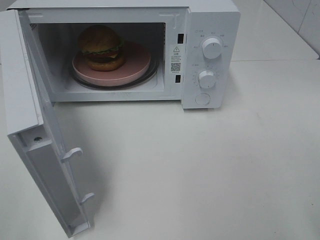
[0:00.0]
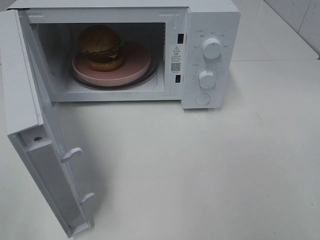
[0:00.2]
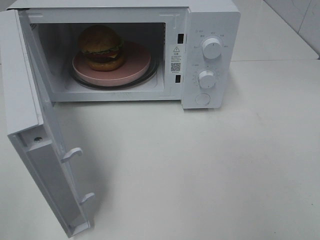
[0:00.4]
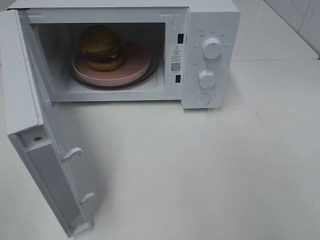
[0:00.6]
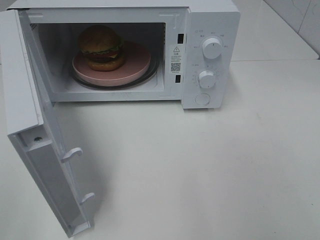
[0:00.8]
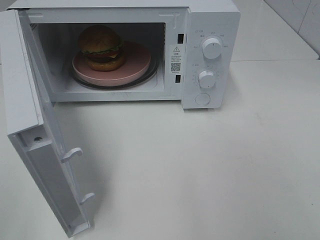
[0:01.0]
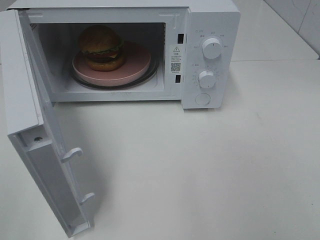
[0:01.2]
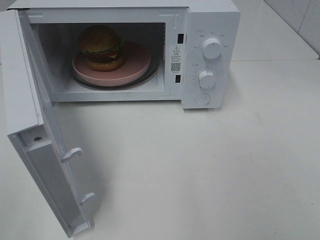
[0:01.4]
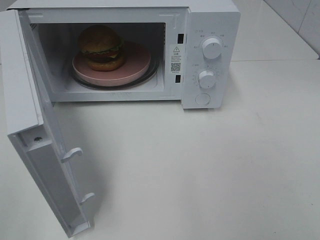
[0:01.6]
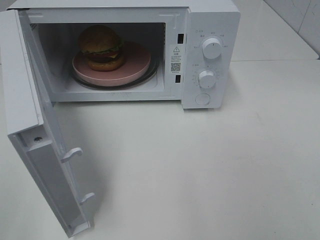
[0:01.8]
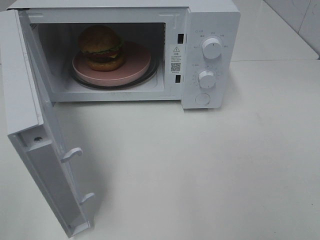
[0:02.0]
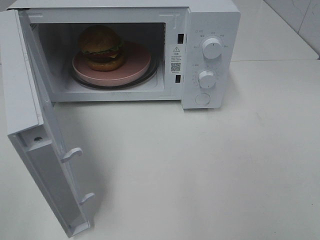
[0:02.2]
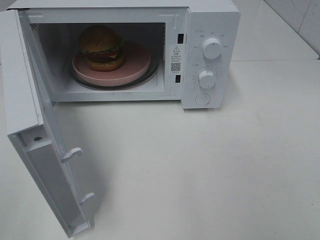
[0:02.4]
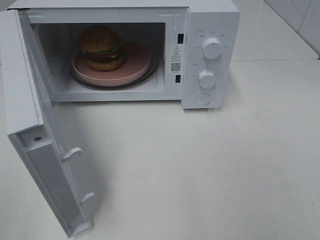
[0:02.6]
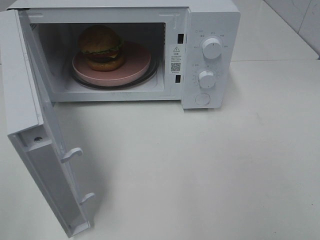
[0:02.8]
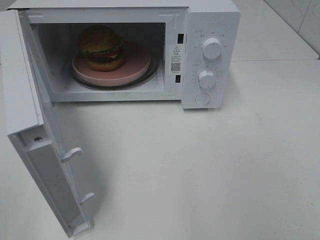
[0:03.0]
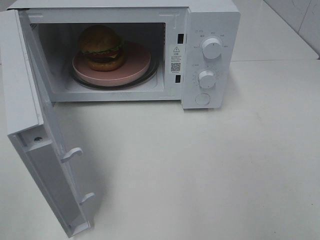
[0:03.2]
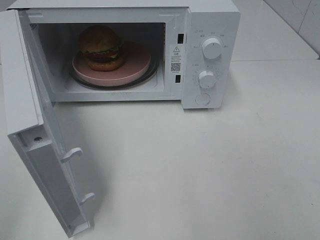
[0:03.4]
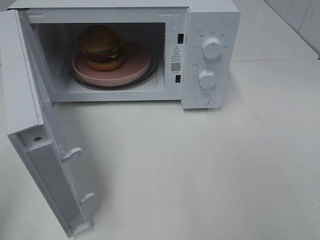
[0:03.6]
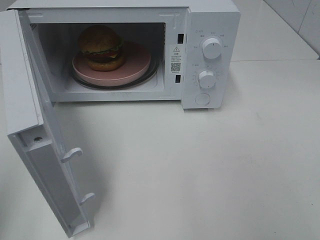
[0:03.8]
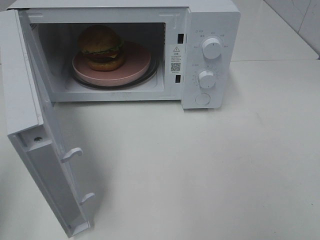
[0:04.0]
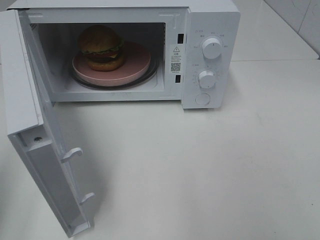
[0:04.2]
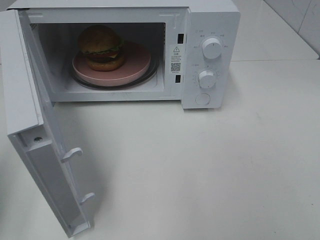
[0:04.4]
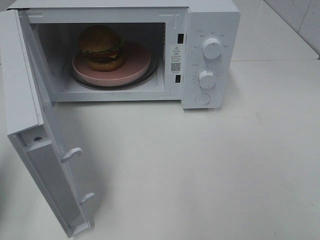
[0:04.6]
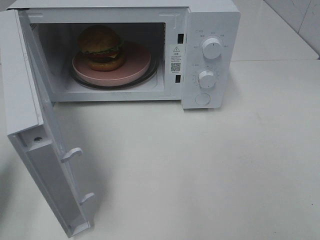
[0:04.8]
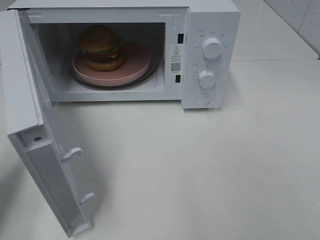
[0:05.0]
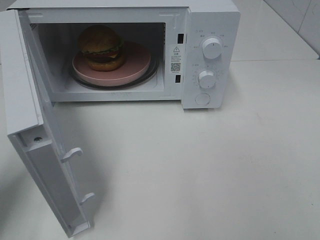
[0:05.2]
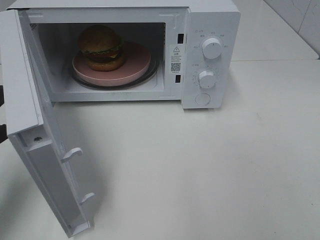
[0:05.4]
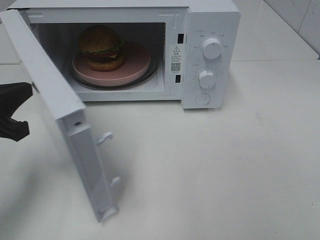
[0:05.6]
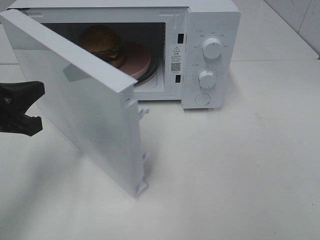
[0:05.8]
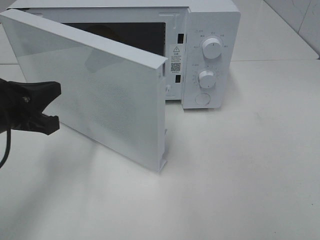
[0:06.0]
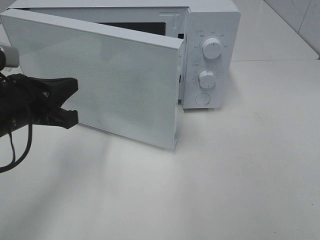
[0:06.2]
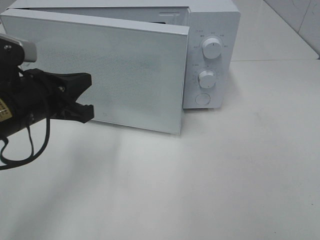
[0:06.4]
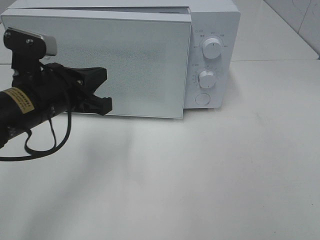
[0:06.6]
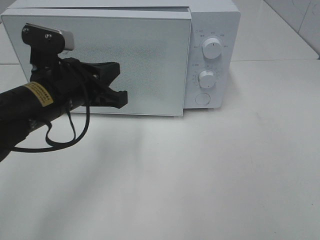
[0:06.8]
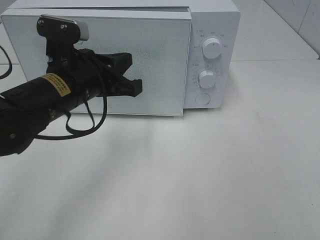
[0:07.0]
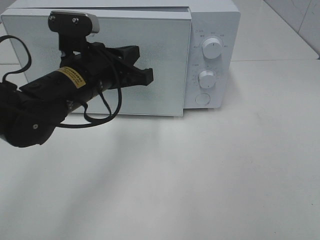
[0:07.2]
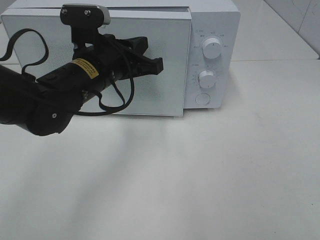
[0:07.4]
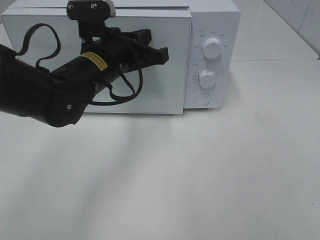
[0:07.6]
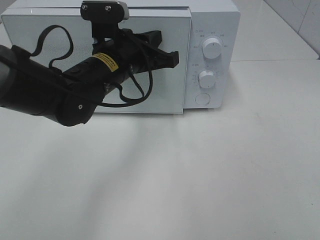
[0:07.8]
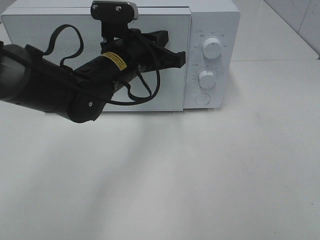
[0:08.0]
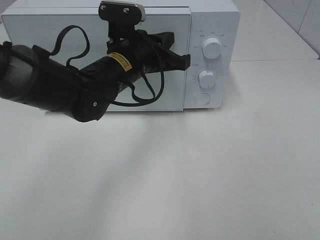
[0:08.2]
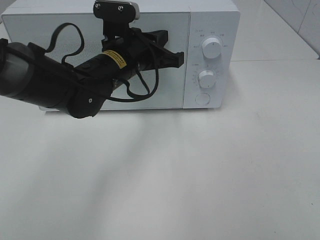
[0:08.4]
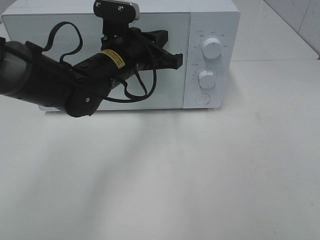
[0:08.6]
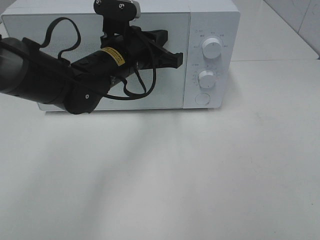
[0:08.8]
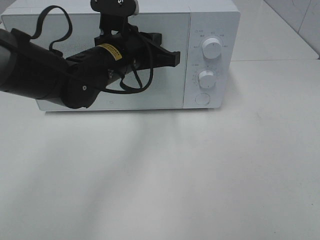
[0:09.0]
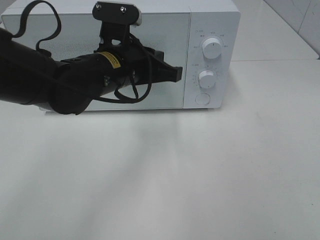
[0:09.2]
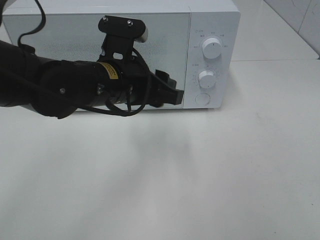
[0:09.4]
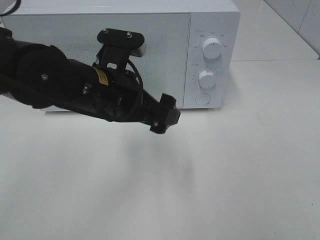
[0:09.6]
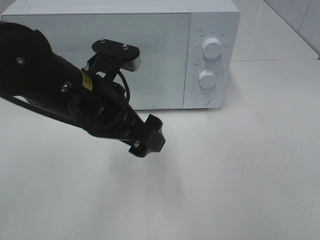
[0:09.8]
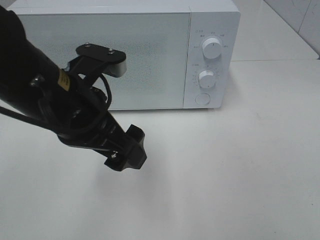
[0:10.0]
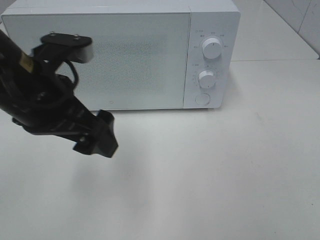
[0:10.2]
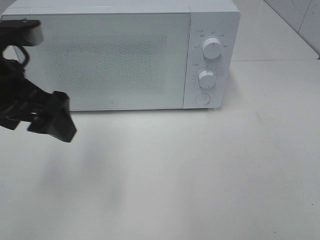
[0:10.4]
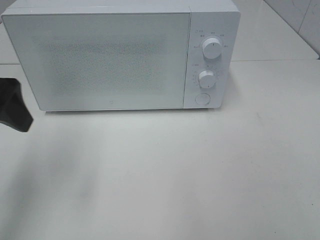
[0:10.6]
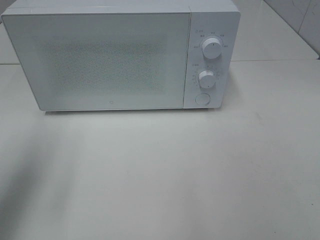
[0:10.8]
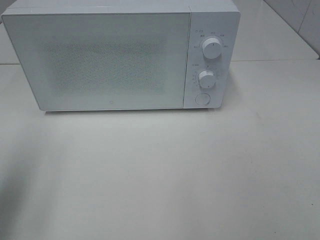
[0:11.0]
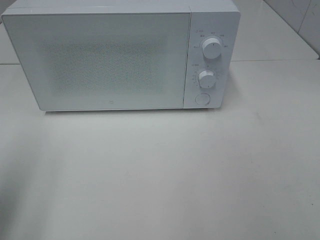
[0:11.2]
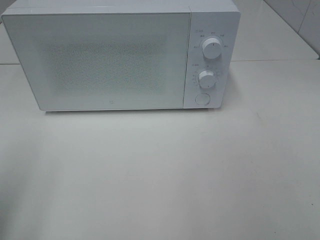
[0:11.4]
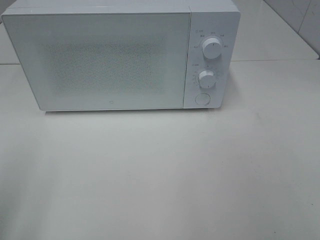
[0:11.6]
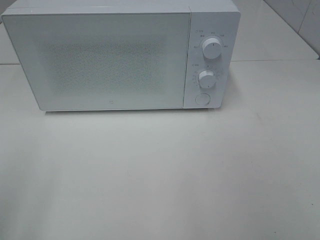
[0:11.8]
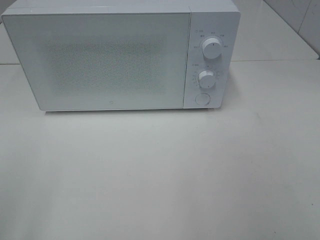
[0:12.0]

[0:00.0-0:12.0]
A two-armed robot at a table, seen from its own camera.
Task of the whole recording: Heat the burger.
Step, 0:00.0 to 0:09.0: Left hand: close the microwave door.
0:01.6 to 0:03.0: Both grippers stay about where they are.
0:04.4 to 0:06.0: The left gripper moves to the right, forward and downward, approximately 15 cm.
0:06.0 to 0:07.6: The left gripper shifts approximately 20 cm to the right and forward.
0:07.6 to 0:09.0: The grippers make only small movements.
0:09.0 to 0:10.4: The left gripper shifts roughly 20 cm to the left, backward and upward, and opens its fingers.
0:10.4 to 0:12.0: The left gripper travels backward and to the left by approximately 25 cm.

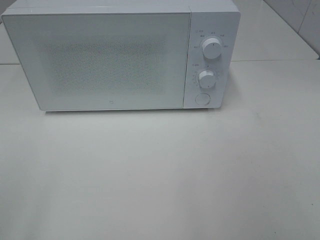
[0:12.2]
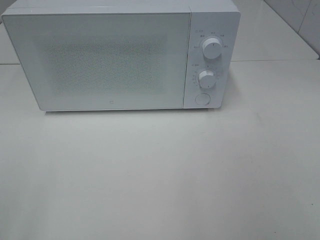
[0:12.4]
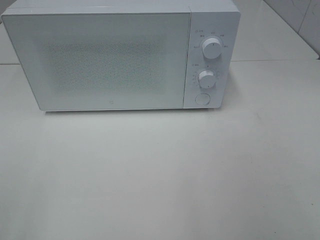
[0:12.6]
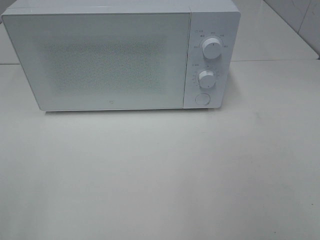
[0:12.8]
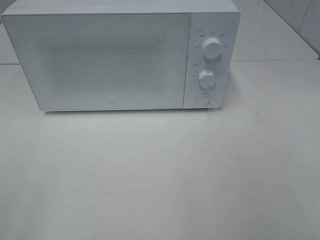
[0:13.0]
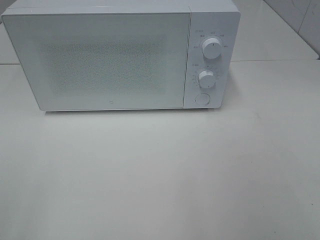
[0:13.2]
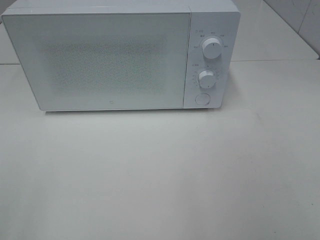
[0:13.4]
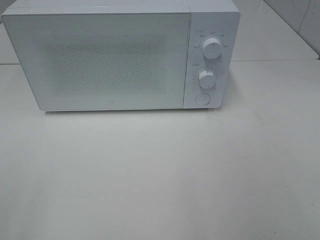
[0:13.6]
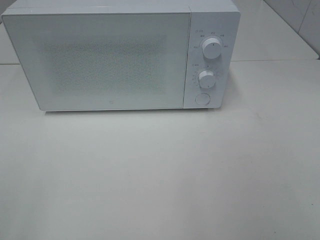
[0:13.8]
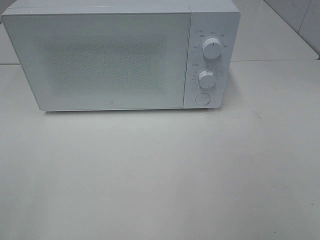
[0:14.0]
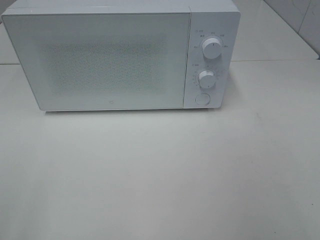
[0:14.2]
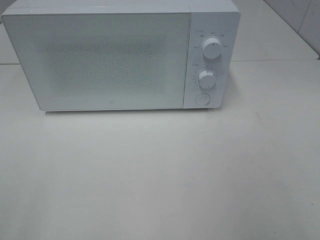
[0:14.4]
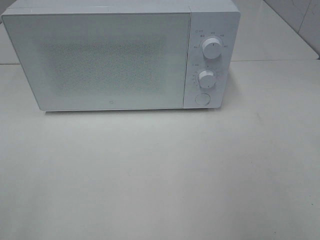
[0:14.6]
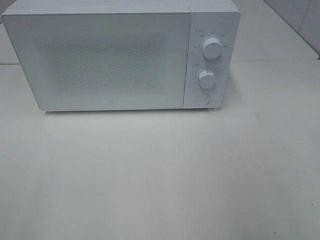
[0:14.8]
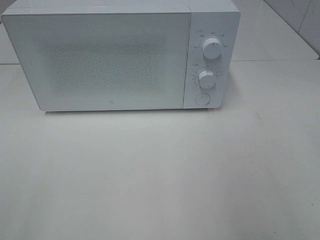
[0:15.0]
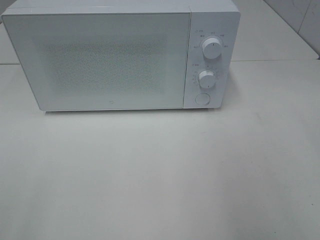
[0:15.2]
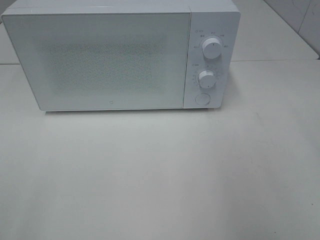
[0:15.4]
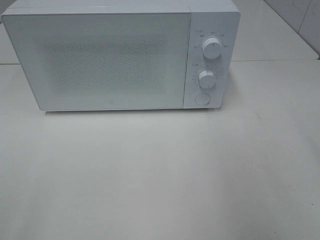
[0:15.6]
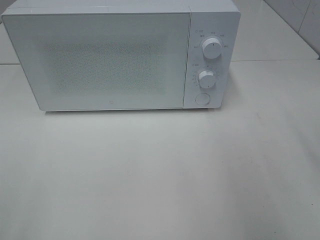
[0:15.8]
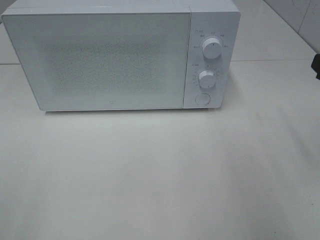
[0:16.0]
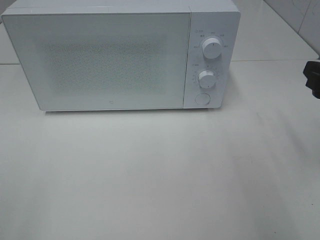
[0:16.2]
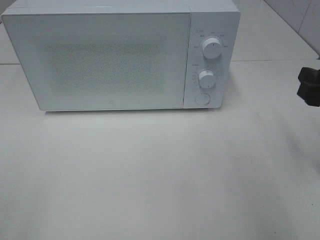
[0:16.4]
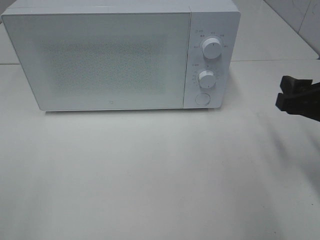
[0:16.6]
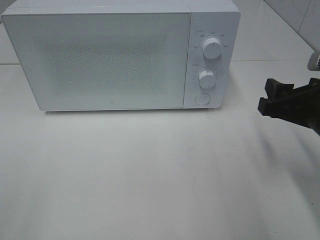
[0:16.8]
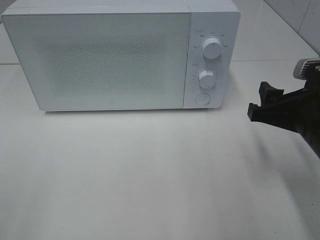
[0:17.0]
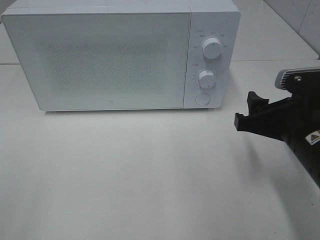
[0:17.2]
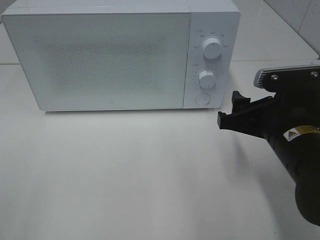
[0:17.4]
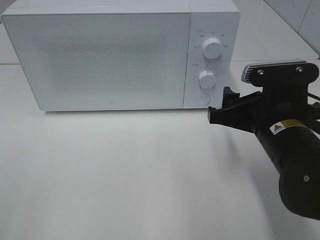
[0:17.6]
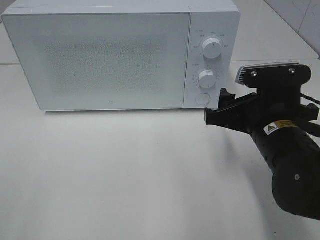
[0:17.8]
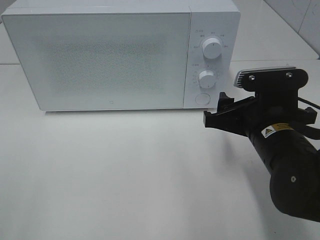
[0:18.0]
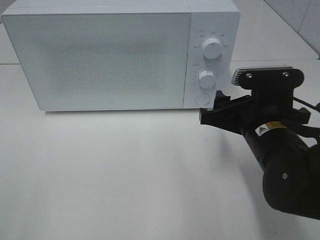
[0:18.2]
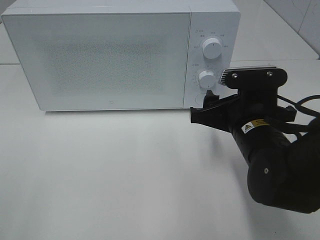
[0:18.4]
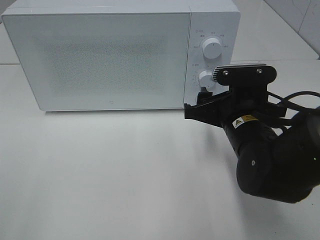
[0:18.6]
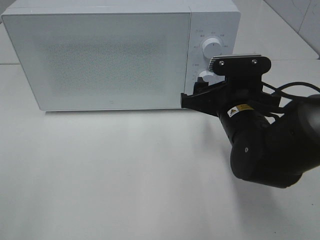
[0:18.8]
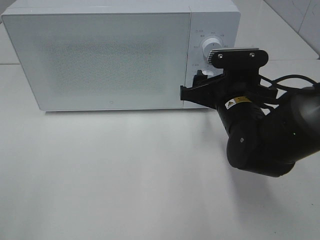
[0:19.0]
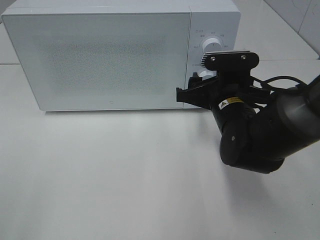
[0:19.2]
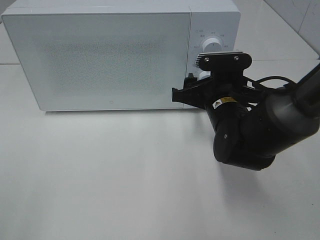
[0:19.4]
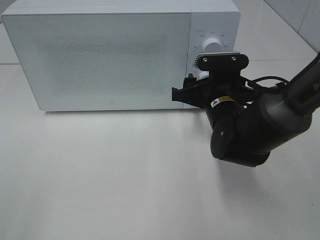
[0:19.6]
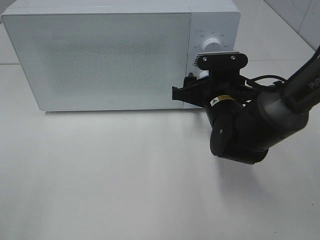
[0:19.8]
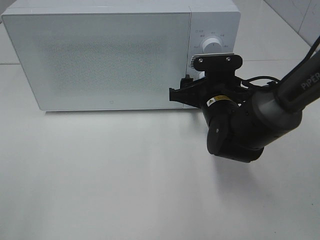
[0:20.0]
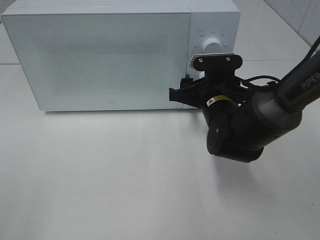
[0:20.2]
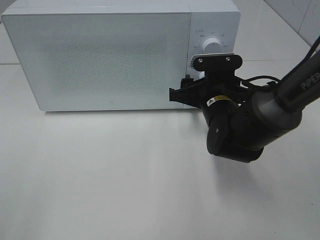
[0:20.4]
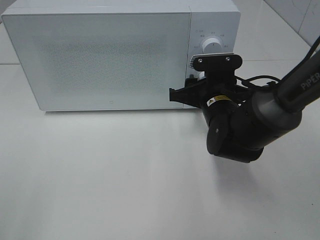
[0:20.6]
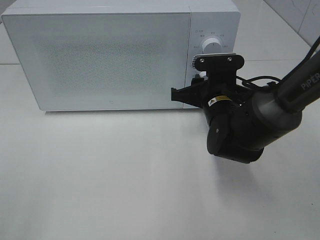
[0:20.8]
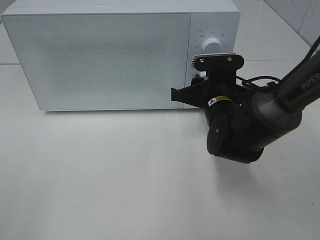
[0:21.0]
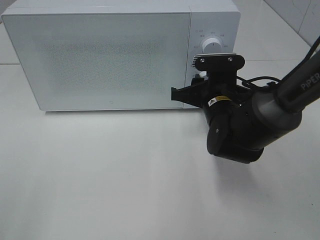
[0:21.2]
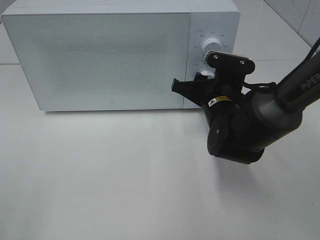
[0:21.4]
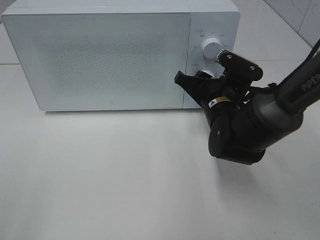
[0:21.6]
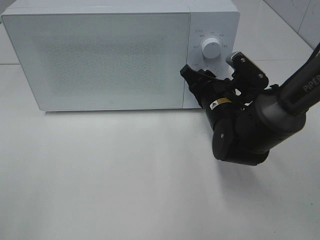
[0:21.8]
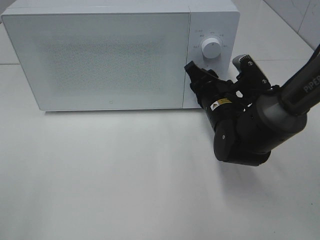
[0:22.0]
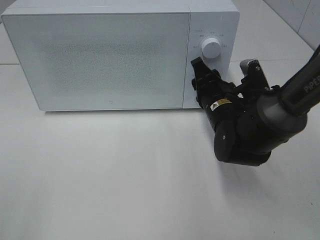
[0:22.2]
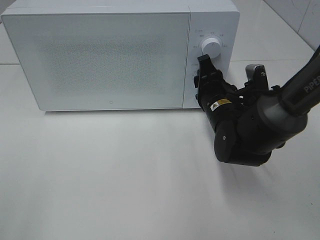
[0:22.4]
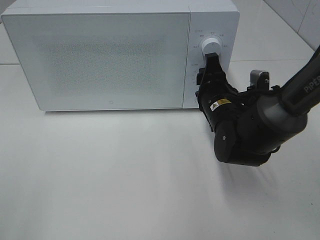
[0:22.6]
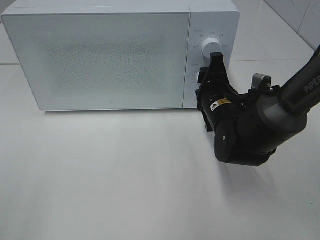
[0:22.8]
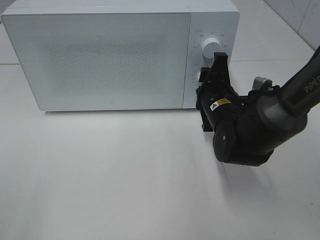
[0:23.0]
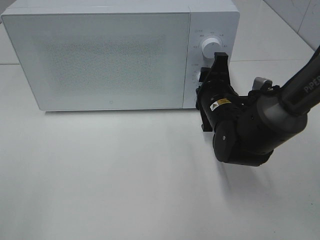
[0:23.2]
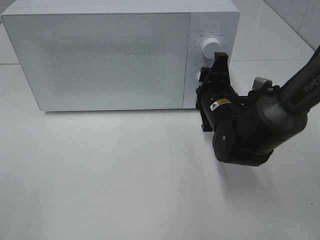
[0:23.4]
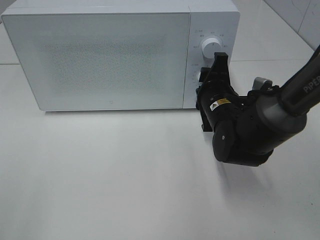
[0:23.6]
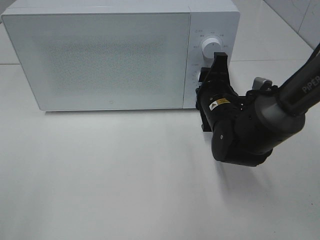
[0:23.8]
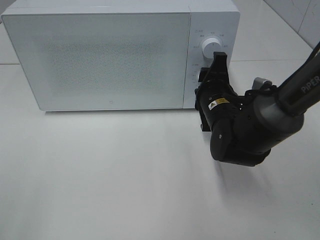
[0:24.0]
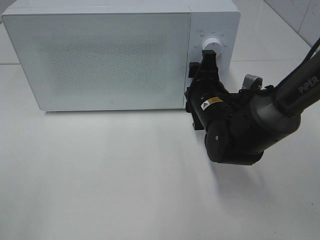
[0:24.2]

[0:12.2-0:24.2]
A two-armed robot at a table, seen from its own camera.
Task of the whole recording: Heat the burger.
Step, 0:12.2 to 0:24.2: Right hand: twist timer button.
0:15.2 to 0:16.6: The right gripper shifts roughly 15 cm downward and forward.
0:16.6 to 0:18.2: The right gripper goes approximately 10 cm to the left.
0:18.2 to 0:19.8: The right gripper travels forward by approximately 10 cm.
0:19.8 to 0:21.2: The right gripper closes.
0:22.6 to 0:24.2: The grippers stay close to where they were, moving slightly.
